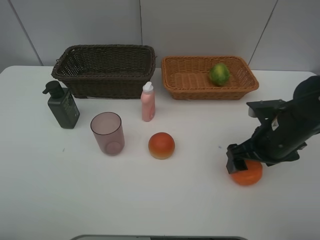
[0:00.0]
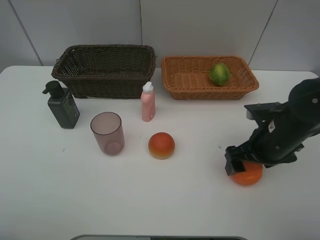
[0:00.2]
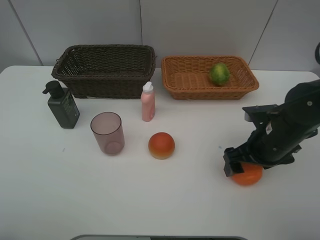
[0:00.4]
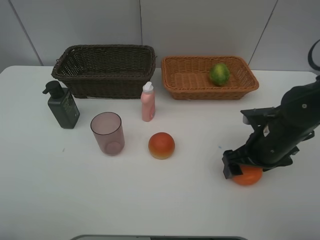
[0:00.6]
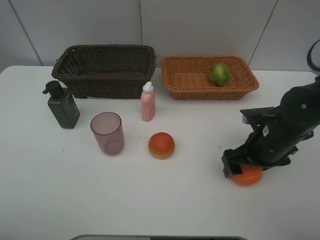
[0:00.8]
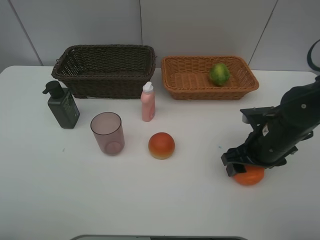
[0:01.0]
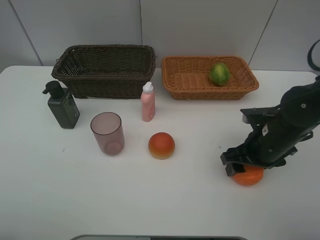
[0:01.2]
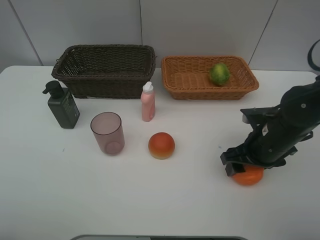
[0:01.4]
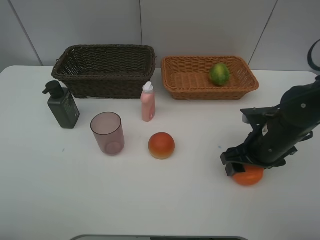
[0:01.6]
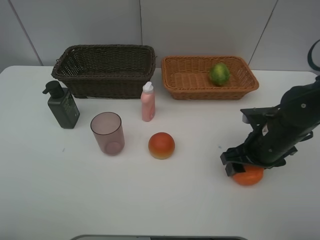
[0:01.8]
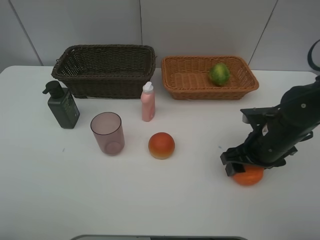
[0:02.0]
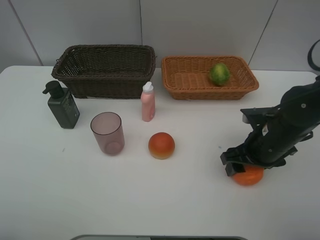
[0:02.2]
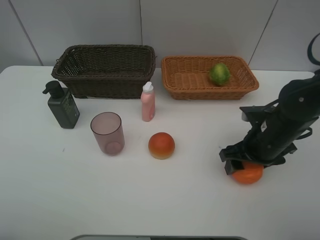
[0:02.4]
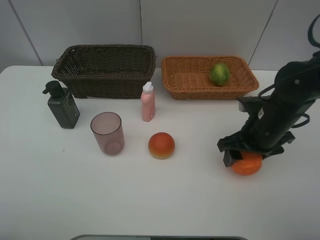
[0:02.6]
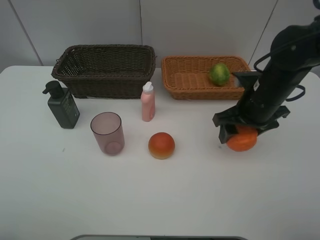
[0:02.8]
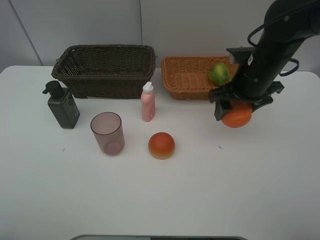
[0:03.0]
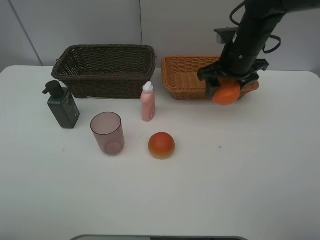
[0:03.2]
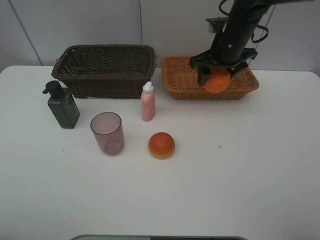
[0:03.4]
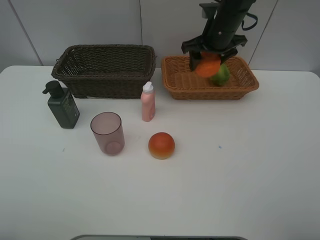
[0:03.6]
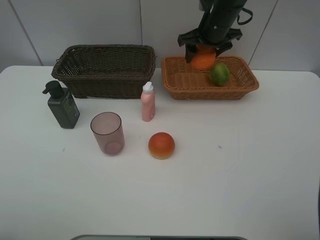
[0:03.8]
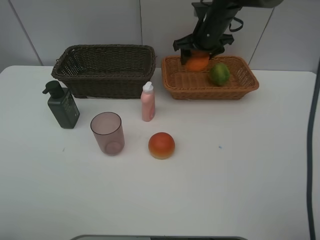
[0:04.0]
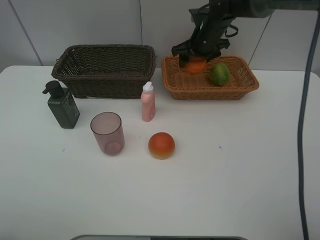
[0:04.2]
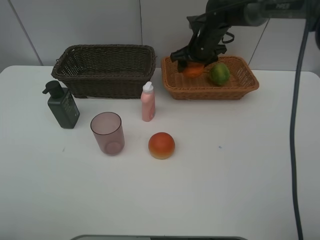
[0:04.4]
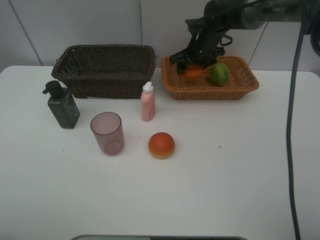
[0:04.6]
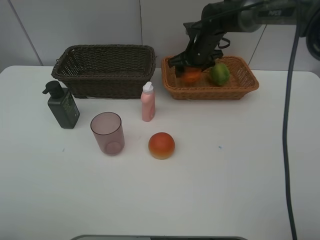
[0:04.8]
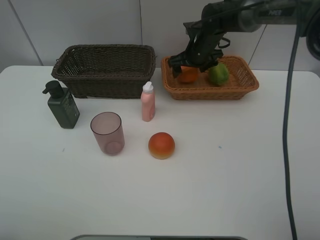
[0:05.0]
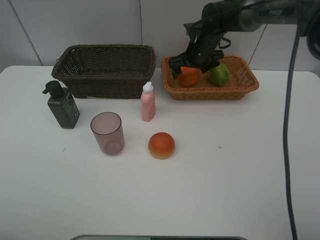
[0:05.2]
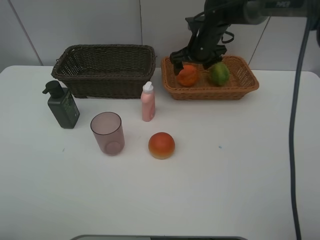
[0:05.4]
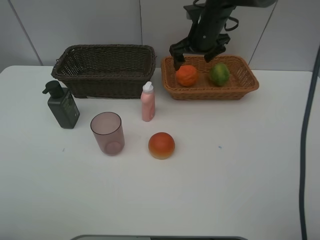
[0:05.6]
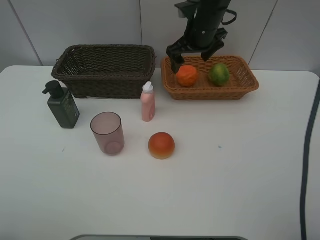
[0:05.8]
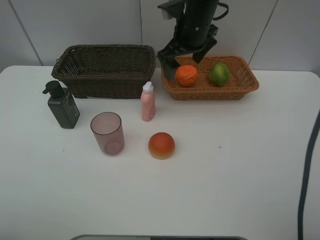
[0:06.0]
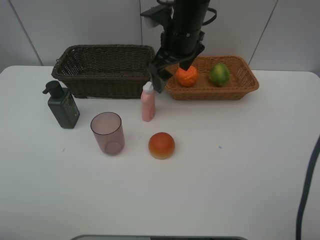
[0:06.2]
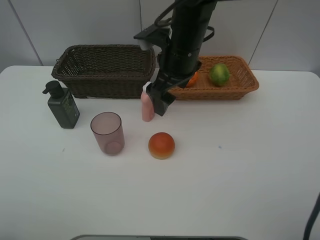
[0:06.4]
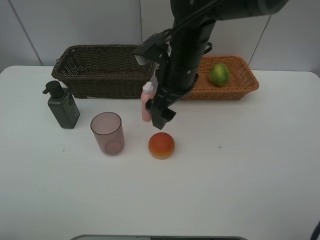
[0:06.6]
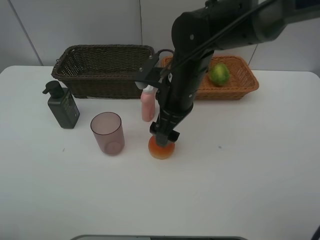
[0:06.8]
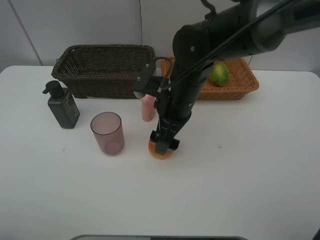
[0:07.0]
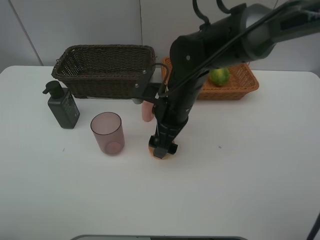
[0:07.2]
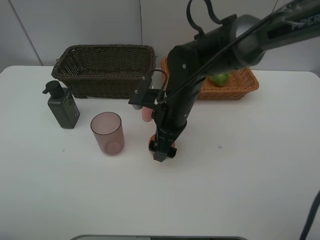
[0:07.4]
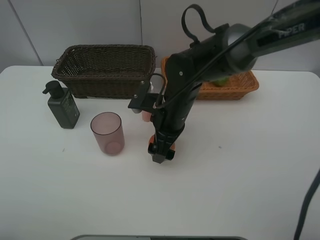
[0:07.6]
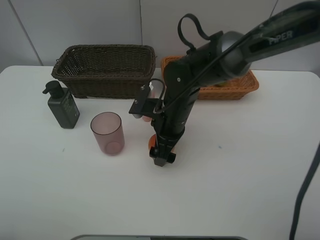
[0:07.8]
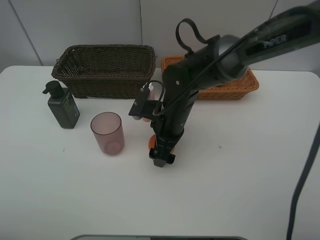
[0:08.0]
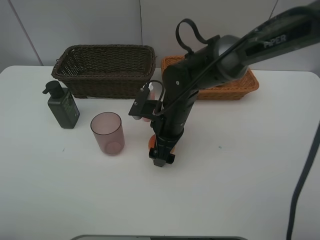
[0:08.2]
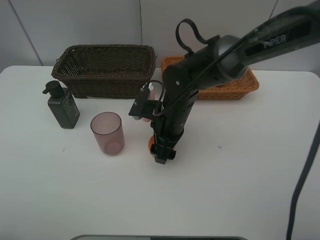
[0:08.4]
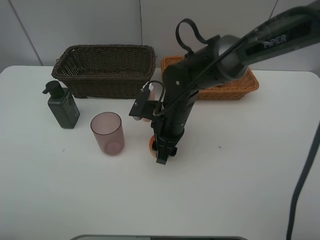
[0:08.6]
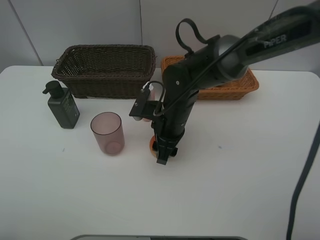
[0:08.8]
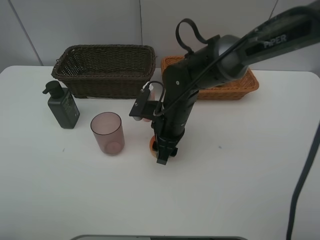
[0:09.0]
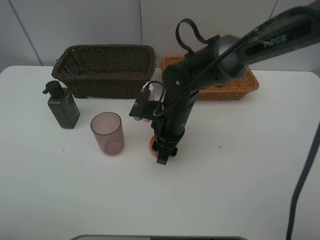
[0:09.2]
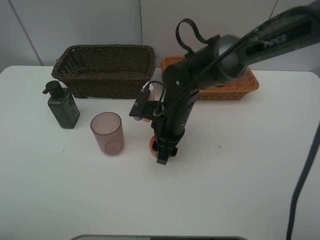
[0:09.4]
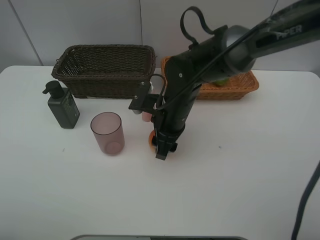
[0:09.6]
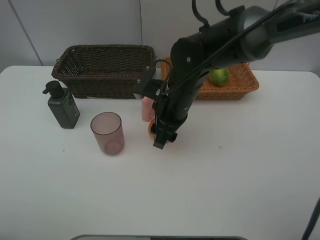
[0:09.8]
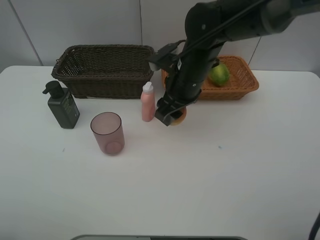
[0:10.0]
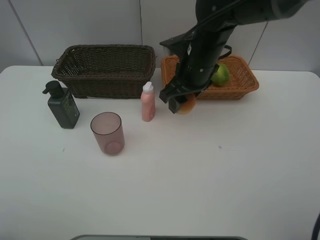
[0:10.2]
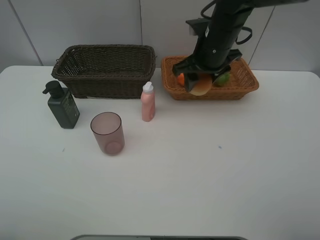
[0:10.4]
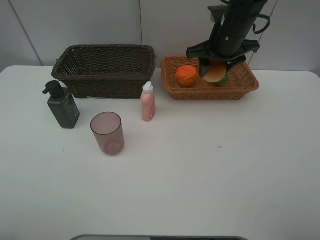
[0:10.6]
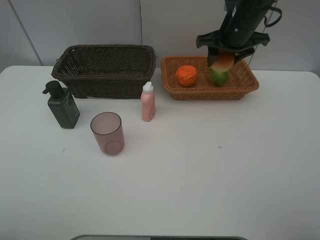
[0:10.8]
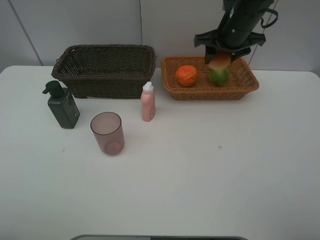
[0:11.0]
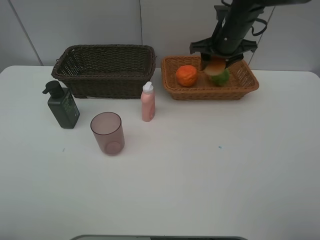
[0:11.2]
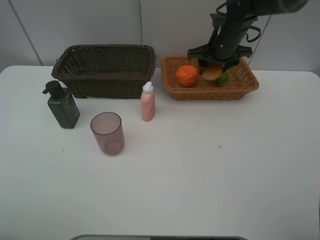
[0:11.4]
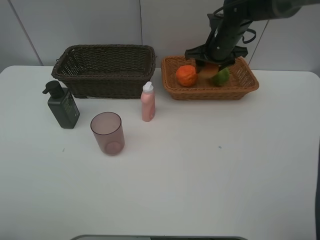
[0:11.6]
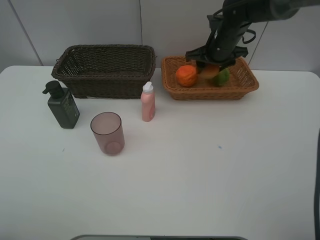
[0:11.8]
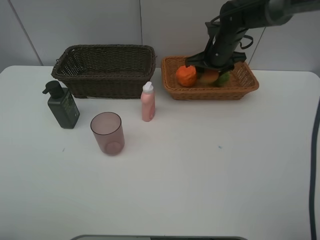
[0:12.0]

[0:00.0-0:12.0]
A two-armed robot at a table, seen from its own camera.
Task of the whole recording: place multiple objects separately in different baskets.
0:00.0 to 0:01.6: The right gripper closes its fingers.
0:01.6 to 0:03.0: The right gripper is displaced forward and upward by about 15 cm.
0:03.0 to 0:04.4: The right gripper goes approximately 15 cm forward.
0:04.4 to 0:06.0: The right gripper moves backward, upward and to the left, approximately 15 cm, and opens up.
0:06.0 to 0:07.6: The right gripper moves downward and backward, about 15 cm.
0:07.6 to 0:09.0: The right gripper closes its fingers.
0:09.0 to 0:10.4: The right gripper travels upward, to the right and forward by some 15 cm.
0:10.4 to 0:12.0: The right gripper is displaced forward and downward by about 10 cm.

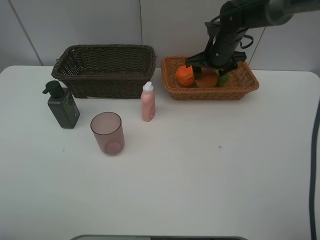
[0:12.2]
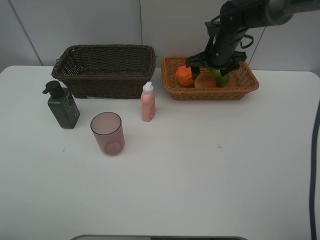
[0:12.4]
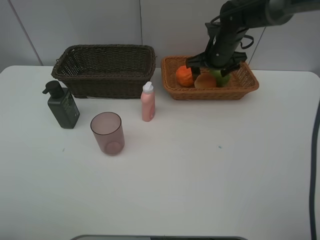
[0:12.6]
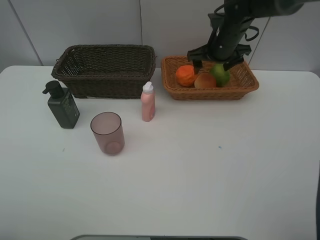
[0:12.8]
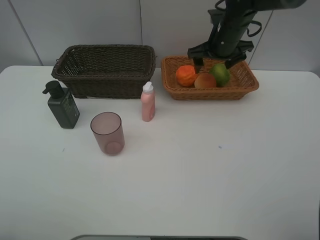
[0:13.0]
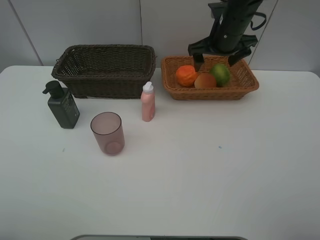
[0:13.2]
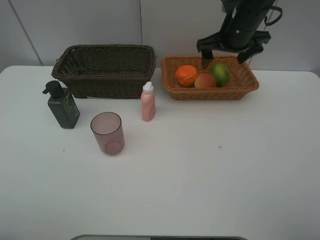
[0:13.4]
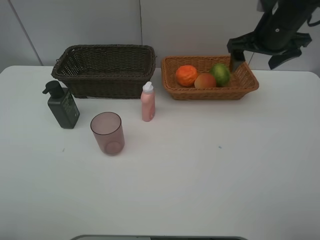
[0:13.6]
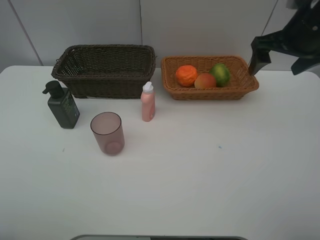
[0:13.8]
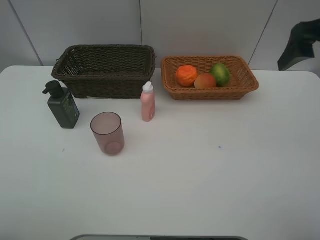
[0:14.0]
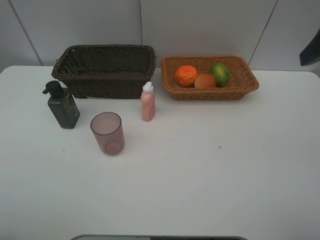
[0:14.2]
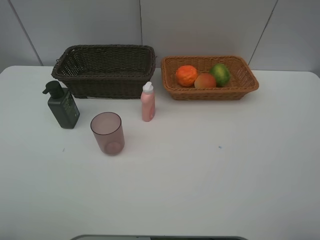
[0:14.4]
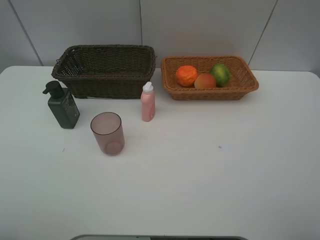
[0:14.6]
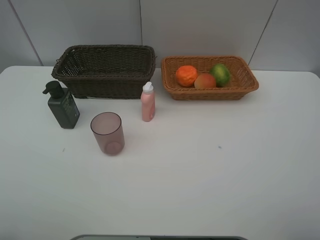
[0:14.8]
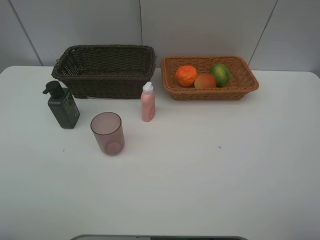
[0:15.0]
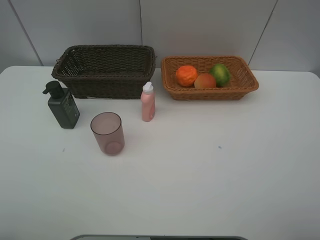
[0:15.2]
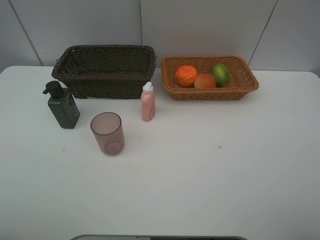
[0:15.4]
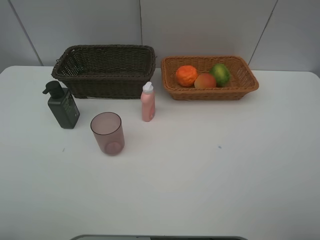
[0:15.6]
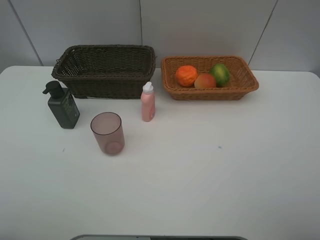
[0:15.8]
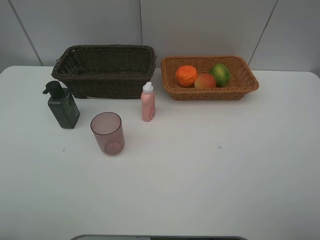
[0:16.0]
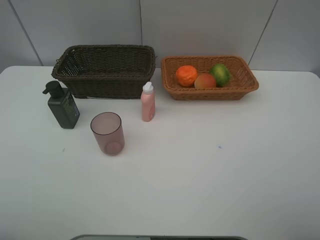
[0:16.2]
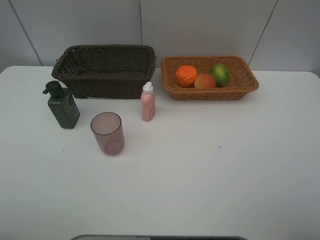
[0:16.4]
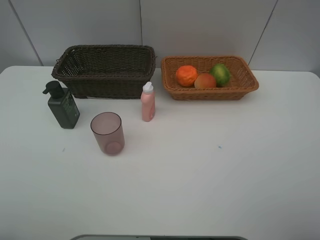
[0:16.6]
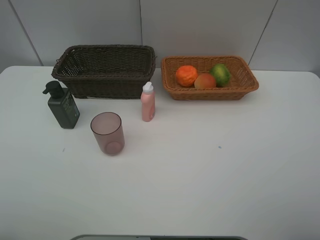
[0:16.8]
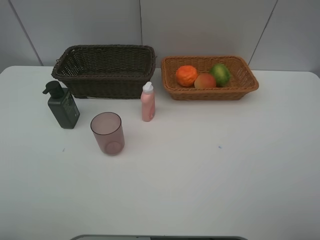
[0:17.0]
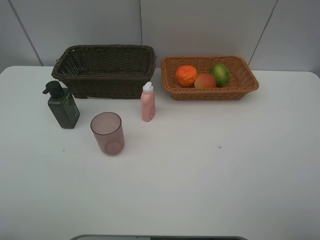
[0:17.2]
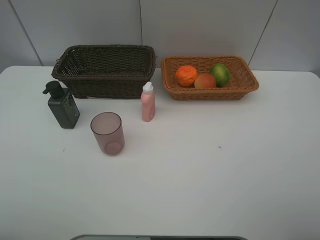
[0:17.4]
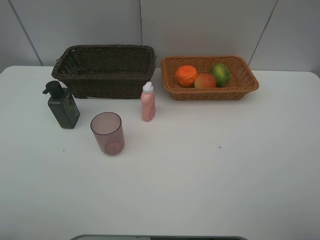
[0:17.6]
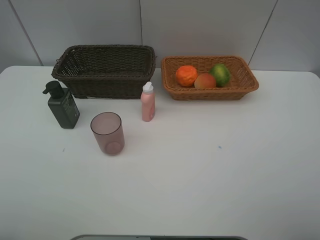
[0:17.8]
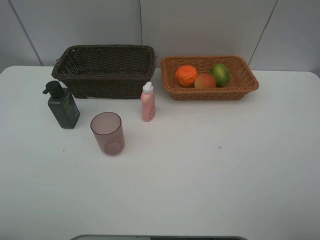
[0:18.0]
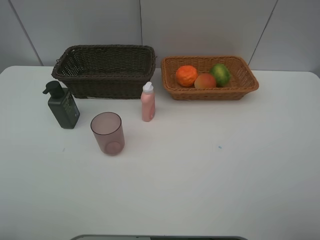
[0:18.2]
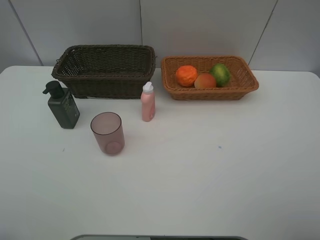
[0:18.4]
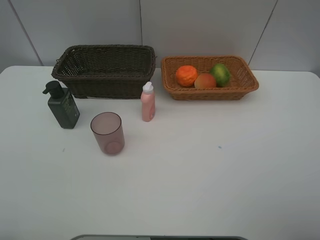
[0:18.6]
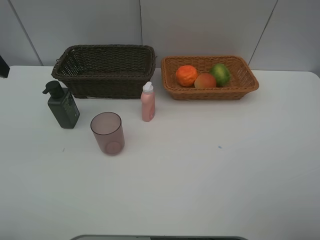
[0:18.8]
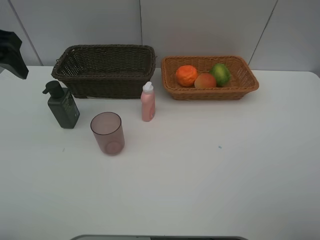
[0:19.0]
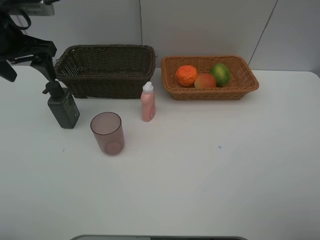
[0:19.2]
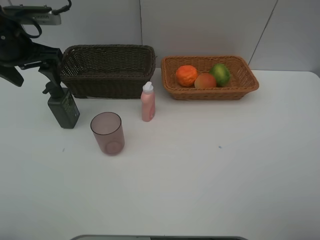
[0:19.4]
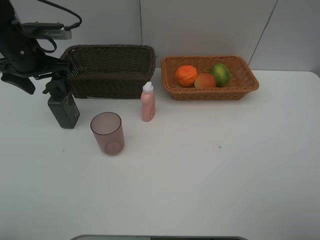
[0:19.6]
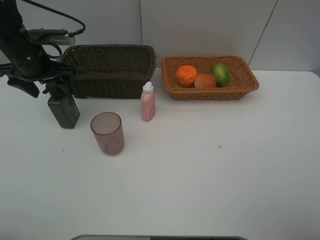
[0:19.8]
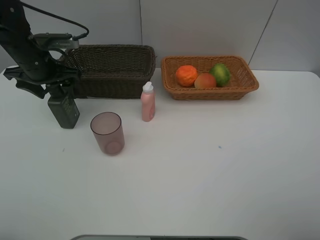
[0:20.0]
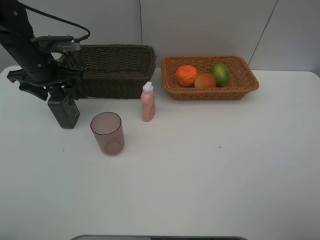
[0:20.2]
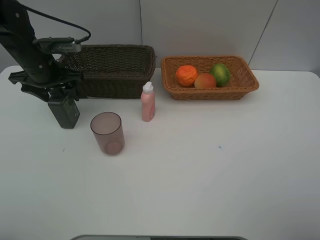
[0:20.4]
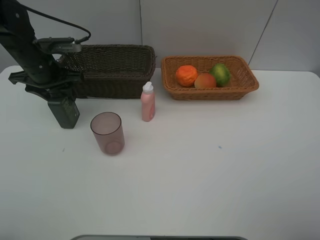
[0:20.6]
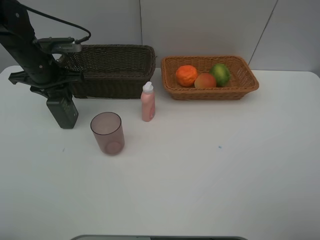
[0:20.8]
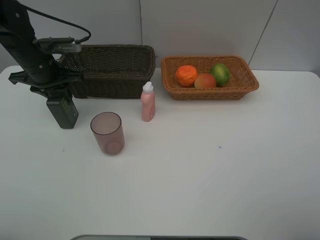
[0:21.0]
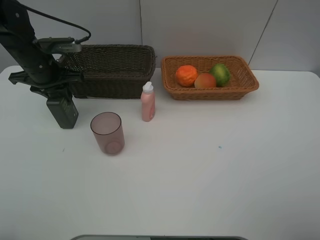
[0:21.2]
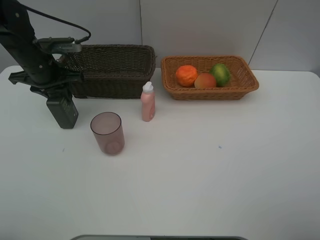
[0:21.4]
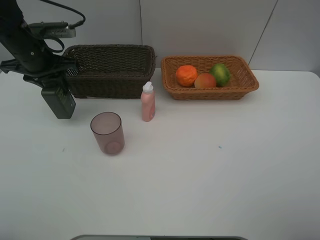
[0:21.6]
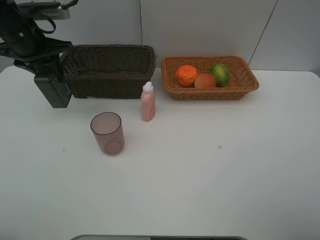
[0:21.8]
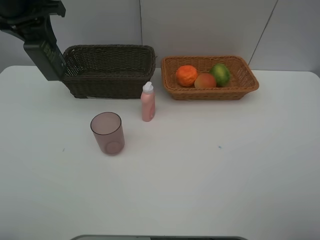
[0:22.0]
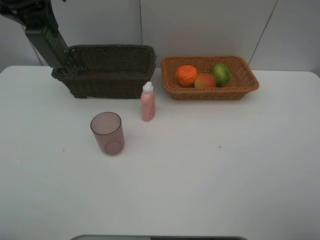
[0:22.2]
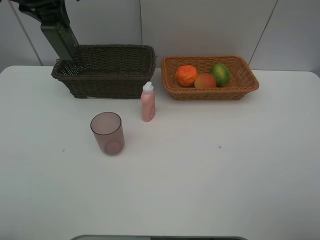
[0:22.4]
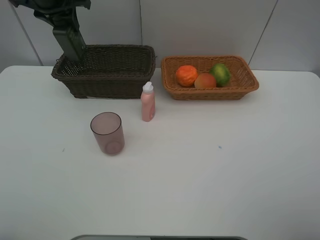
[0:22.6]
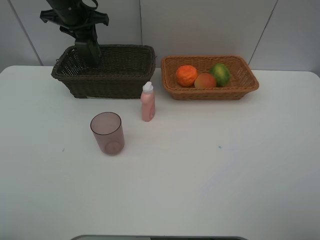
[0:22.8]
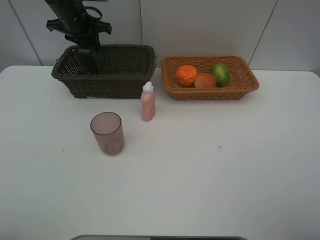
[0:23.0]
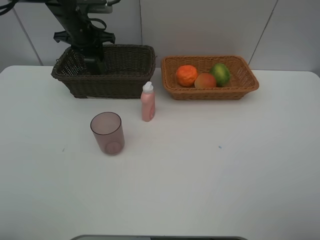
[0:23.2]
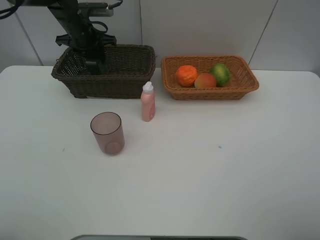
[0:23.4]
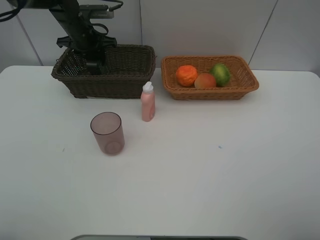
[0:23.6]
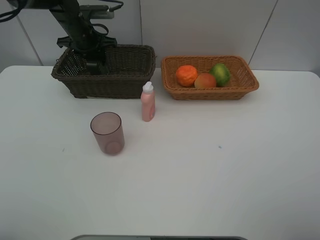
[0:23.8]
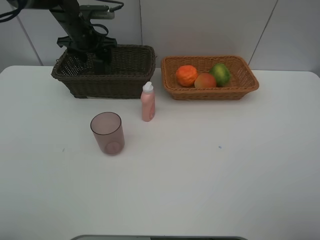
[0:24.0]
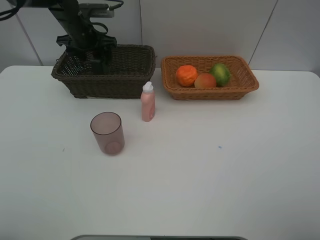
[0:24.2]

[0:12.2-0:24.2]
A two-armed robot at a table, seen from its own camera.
Task of the whole recording: place multiple objects separately in different baskets.
0:12.2 to 0:13.8: The right gripper is displaced backward, upward and to the right by about 20 cm, and opens up.
0:13.8 to 0:15.2: The right gripper heads backward, covering some 35 cm.
0:16.6 to 0:18.2: Neither gripper changes place.
0:18.2 to 0:19.8: The left gripper travels forward by about 35 cm.
0:19.8 to 0:21.2: The left gripper closes.
0:21.2 to 0:22.6: The left gripper goes approximately 15 cm upward and forward.
0:22.6 to 0:24.2: The left gripper moves downward, roughly 10 cm, and opens its fingers.
